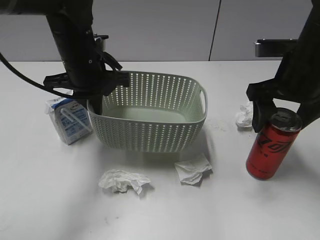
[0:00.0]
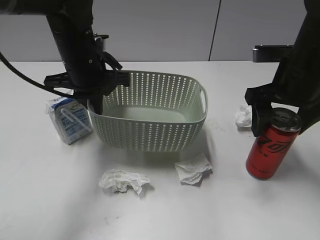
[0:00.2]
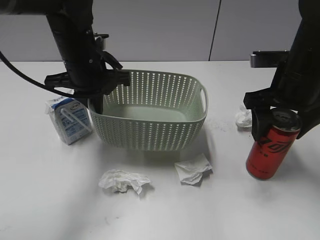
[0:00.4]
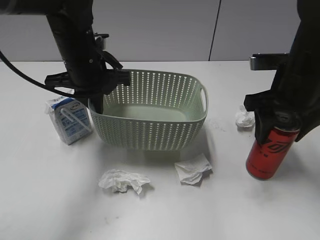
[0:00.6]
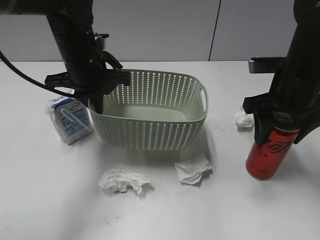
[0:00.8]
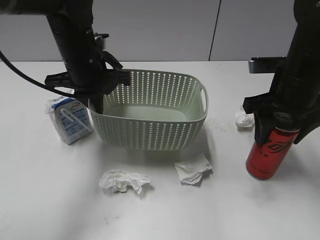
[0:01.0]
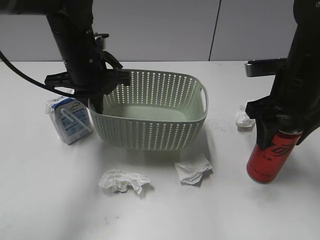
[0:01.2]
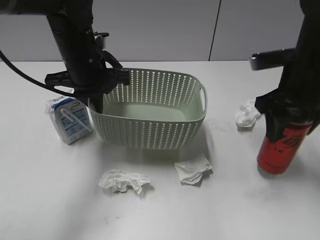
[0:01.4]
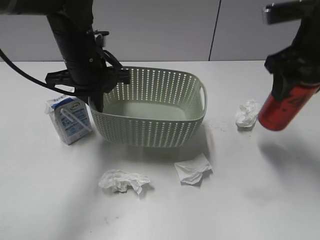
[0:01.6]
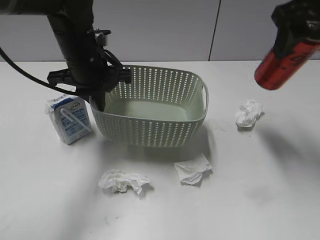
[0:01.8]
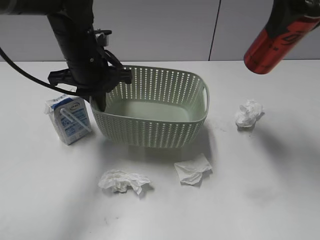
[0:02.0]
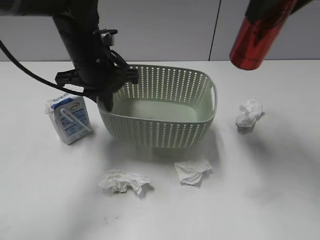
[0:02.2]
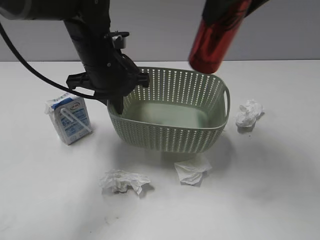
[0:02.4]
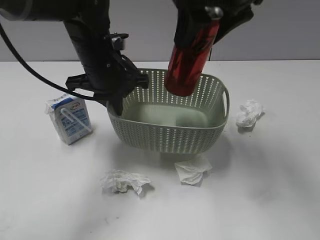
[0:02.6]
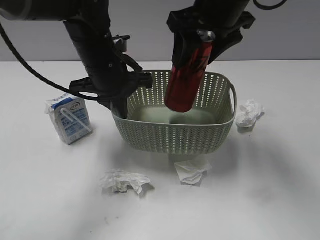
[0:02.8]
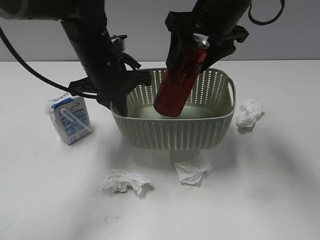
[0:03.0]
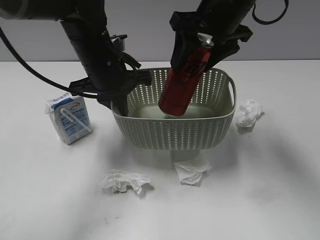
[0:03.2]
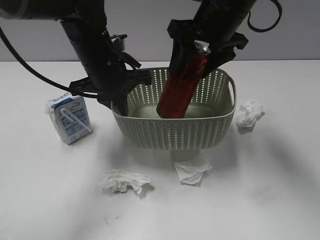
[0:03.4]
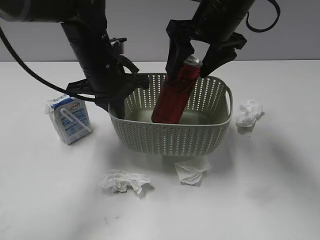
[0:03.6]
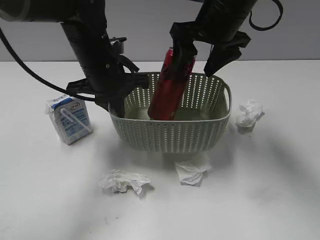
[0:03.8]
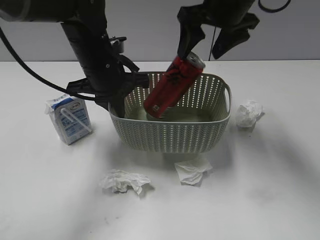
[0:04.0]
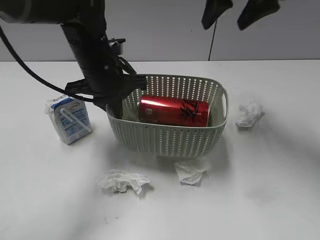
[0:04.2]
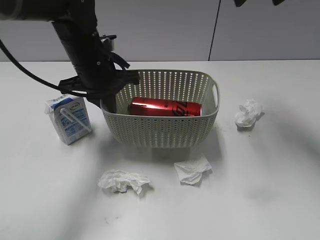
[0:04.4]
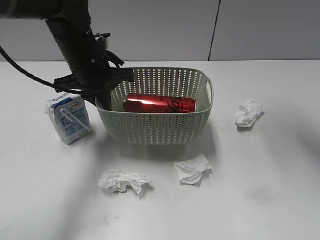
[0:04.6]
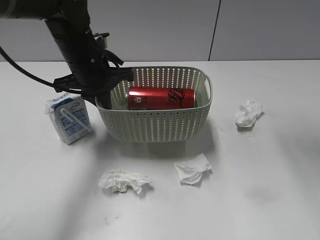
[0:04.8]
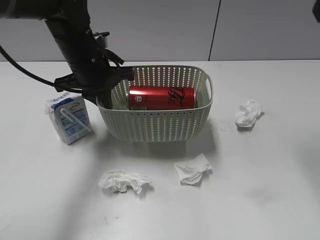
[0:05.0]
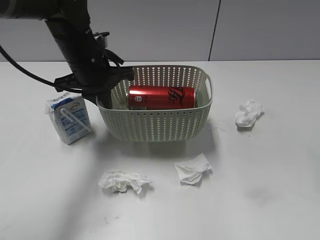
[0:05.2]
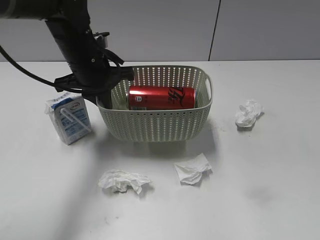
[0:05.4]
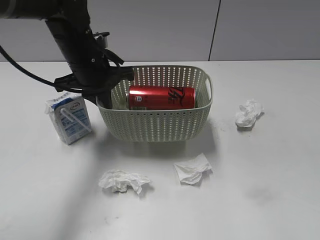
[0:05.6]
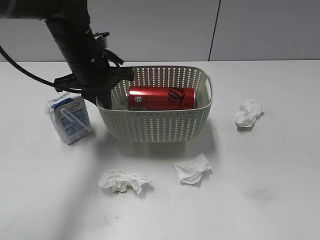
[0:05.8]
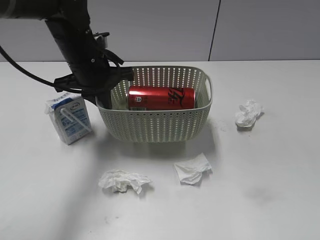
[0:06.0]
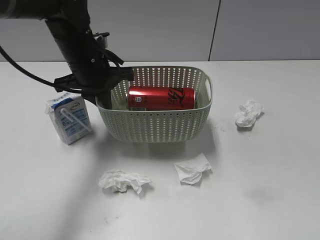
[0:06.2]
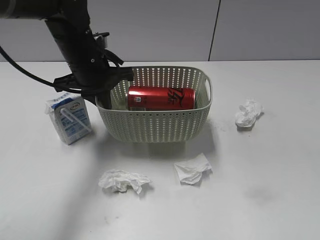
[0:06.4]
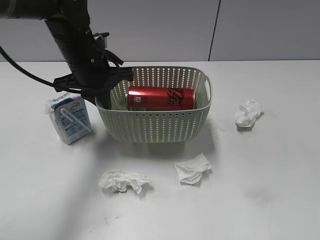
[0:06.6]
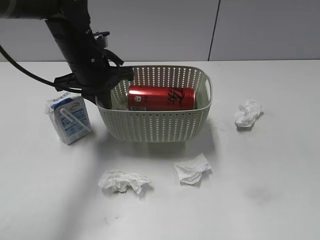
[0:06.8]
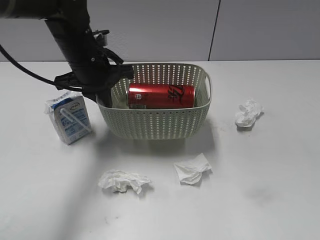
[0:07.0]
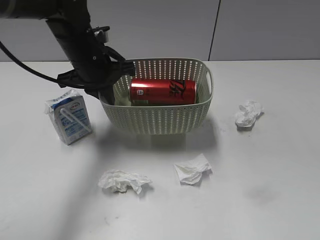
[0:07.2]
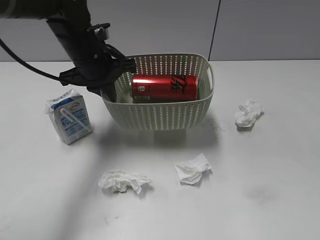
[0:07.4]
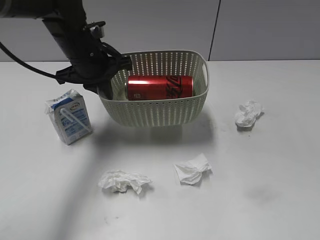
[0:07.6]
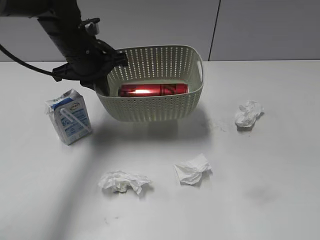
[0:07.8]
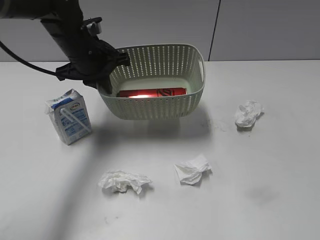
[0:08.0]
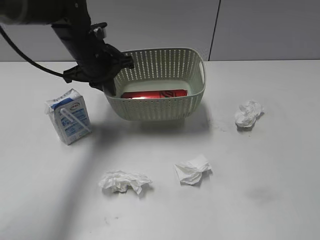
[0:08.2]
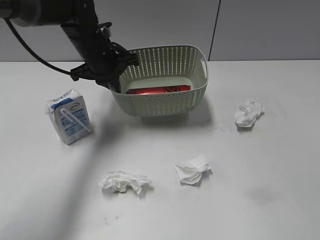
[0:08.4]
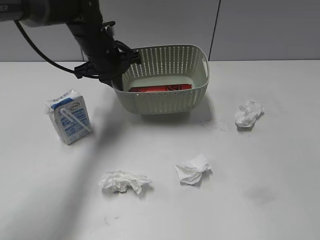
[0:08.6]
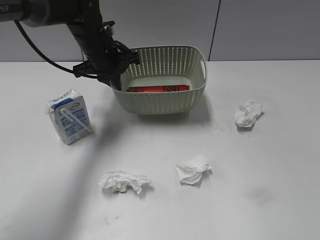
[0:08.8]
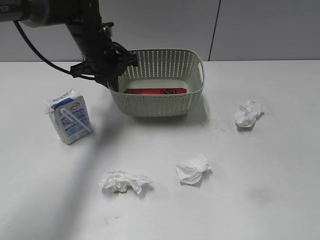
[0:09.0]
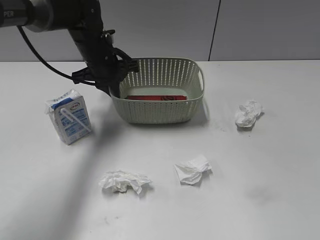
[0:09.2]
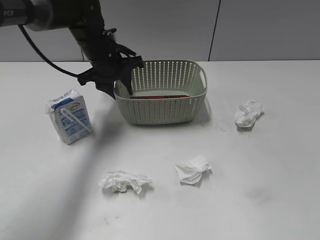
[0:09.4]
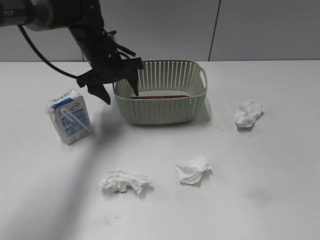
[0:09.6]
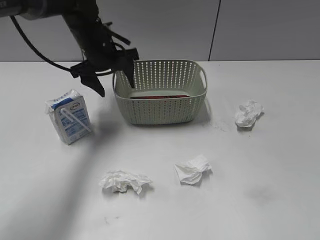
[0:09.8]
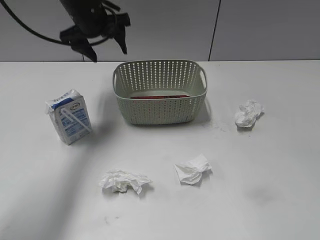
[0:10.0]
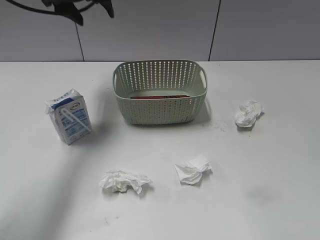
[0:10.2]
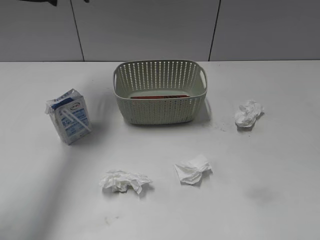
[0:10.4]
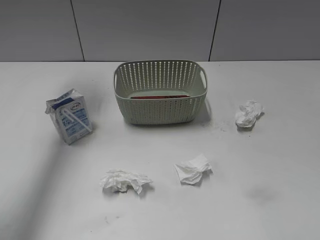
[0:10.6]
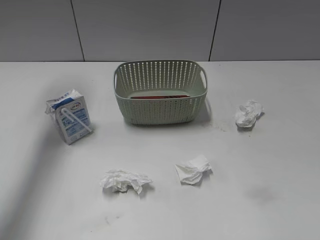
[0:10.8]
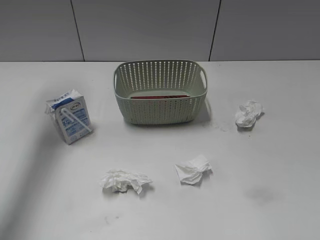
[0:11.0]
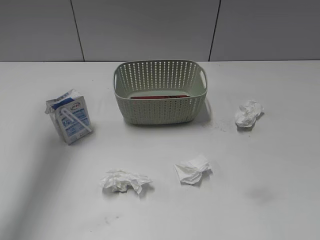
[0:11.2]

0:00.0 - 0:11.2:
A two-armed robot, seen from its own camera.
Step, 0:00.0 - 0:01.2: Grasp the cola can with right gripper.
Step, 0:01.4 - 0:03.6: Place the cola can in the basket with right gripper.
Step, 0:03.8 - 0:09.4: Place the basket on the table with left gripper.
0:00.0 - 0:01.6: The right gripper closes its fingers.
0:01.6 - 0:03.2: The right gripper travels to the left and forward by approximately 15 cm.
0:03.2 - 0:04.8: The right gripper shifts some 15 cm upward and to the right, and opens its fingers.
0:04.8 - 0:06.4: The right gripper travels backward and downward by some 35 cm.
0:06.4 - 0:08.0: There are only small adjustments of the grippers.
0:08.0 - 0:09.6: The left gripper ends up about 5 cm from where it was, and opens up.
0:09.6 - 0:11.2: The left gripper shifts roughly 30 cm upward and to the left.

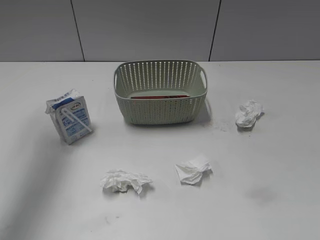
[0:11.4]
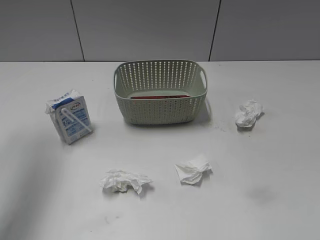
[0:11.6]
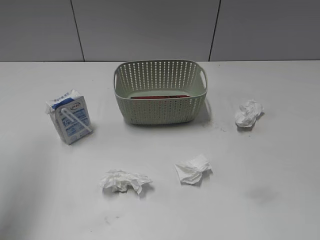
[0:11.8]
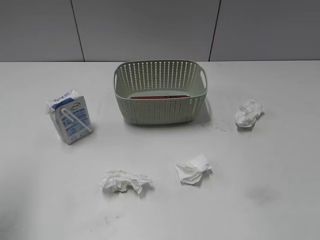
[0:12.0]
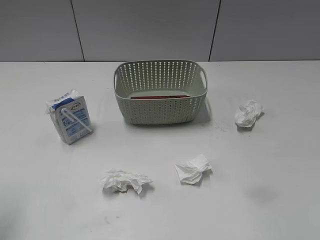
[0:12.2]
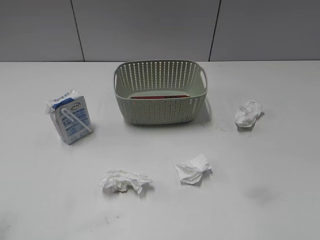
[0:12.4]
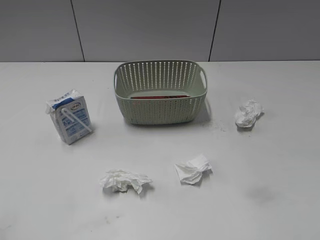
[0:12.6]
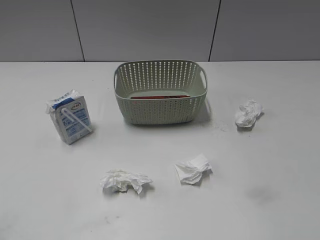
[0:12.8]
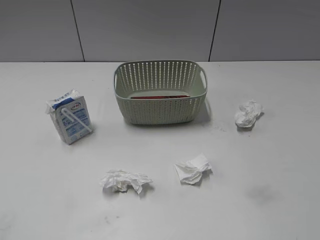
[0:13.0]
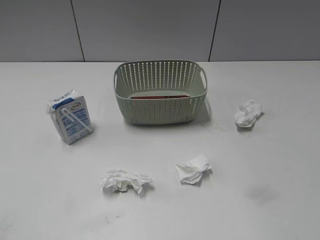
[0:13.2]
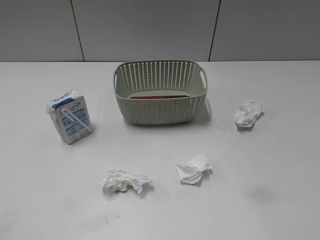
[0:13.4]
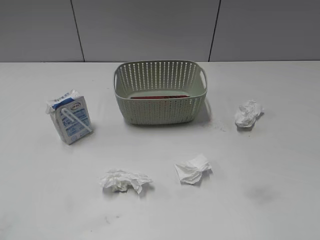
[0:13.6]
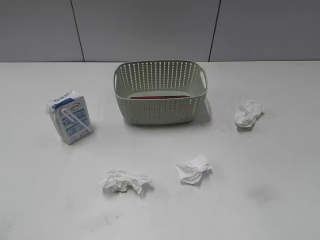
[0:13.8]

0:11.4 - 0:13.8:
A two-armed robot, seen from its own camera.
0:11.4 - 0:12.6: The left gripper travels backward and downward by roughly 30 cm.

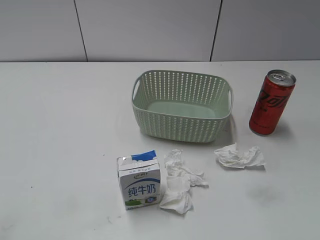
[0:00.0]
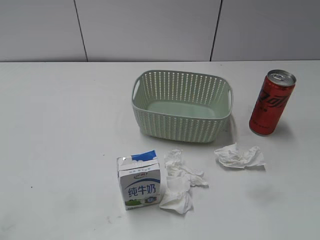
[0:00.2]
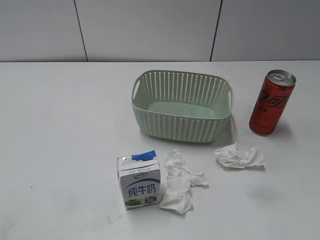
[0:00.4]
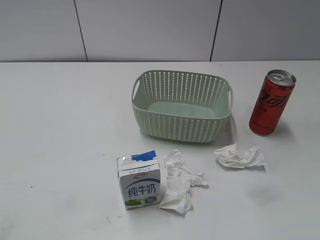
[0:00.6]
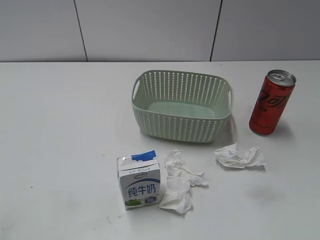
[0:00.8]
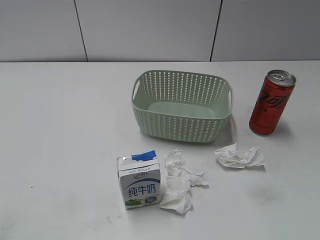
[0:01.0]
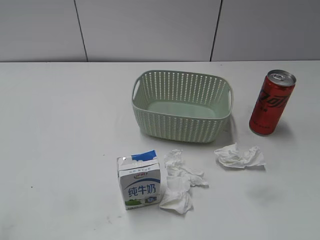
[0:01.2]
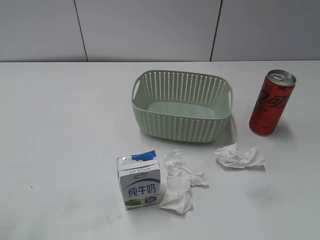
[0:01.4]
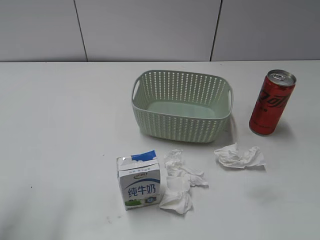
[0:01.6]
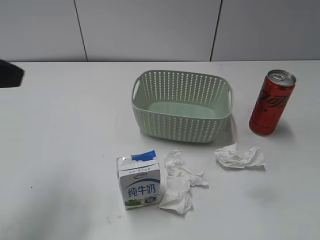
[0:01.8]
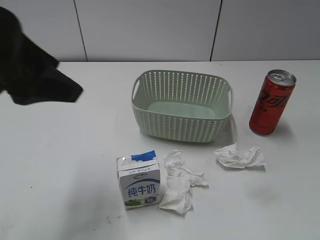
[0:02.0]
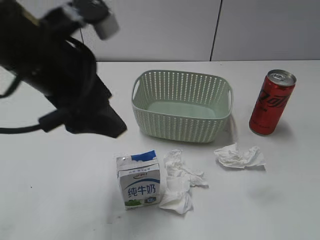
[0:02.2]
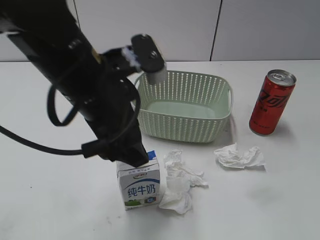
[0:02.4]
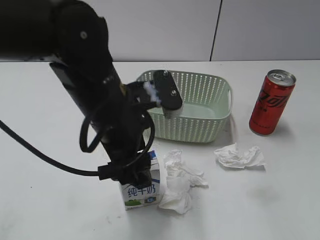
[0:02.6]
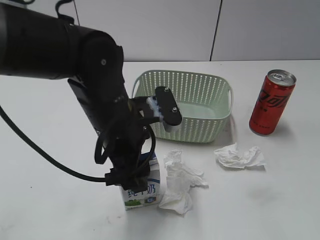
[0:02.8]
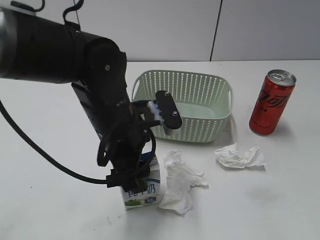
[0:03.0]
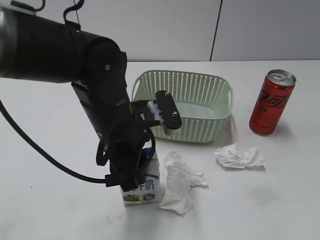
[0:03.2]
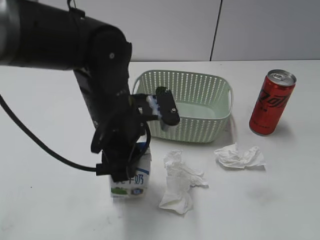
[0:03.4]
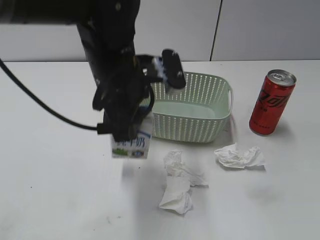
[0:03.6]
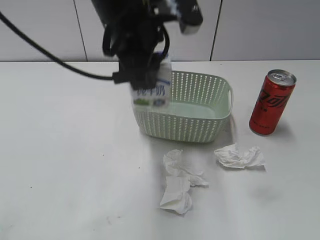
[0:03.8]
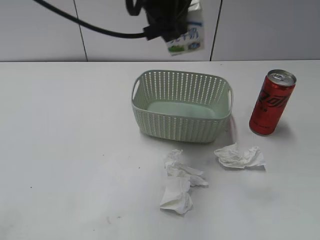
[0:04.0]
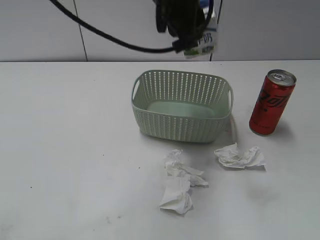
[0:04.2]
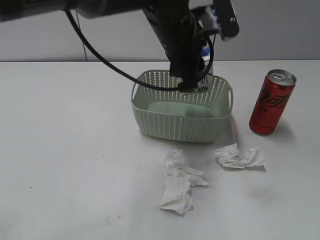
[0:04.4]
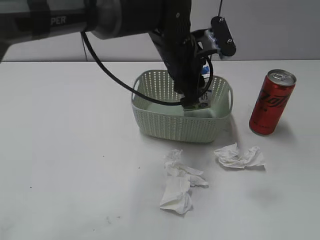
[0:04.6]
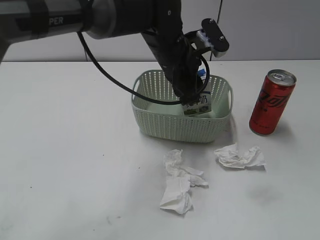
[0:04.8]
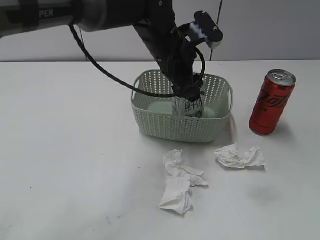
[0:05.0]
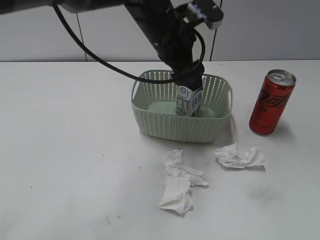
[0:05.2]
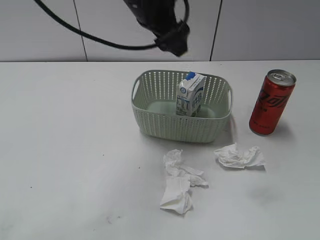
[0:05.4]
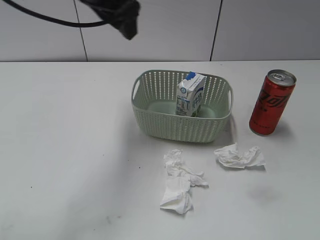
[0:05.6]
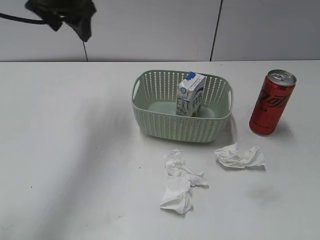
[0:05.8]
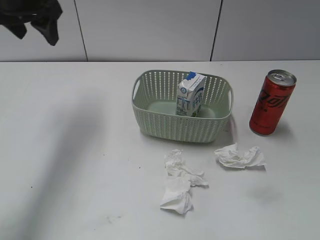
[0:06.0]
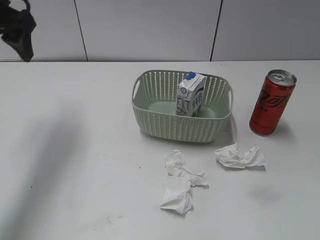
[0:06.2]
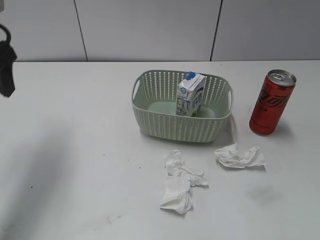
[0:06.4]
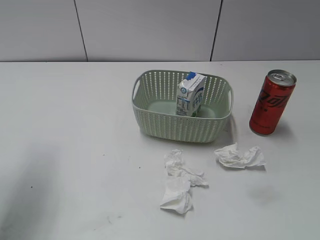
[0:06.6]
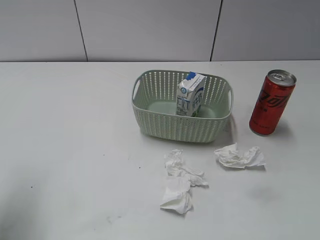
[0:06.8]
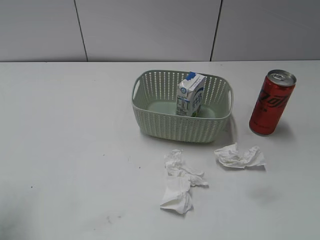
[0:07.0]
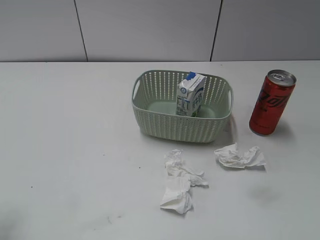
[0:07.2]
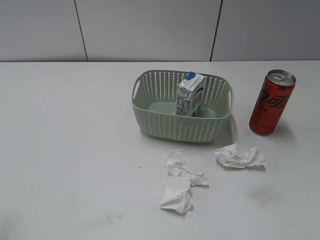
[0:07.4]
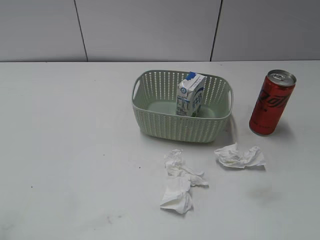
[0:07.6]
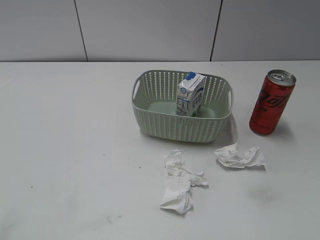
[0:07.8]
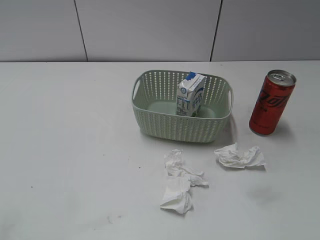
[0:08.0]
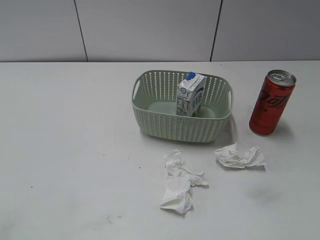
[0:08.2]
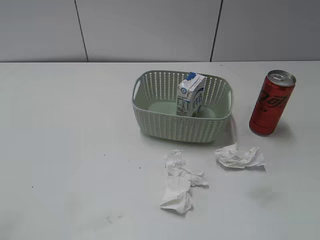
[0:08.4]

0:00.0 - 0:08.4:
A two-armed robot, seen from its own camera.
Step, 0:01.8 - 0:03.2: Grasp the milk with left gripper.
Step, 0:03.4 - 0:05.4: Place the milk in the basket with left gripper.
0:01.4 - 0:02.8: The left gripper heads to the right, forward and downward, covering roughly 35 cm.
0:02.8 - 0:04.2: The left gripper goes approximately 20 cm upward and forward, and closes up.
0:04.2 - 0:05.6: The left gripper is displaced forward and to the left by about 10 cm, moves approximately 15 cm downward and comes back, and opens.
0:05.6 - 0:07.0: The left gripper is displaced to the left and backward by approximately 30 cm.
0:07.0 - 0:08.4: The left gripper goes approximately 20 cm backward.
